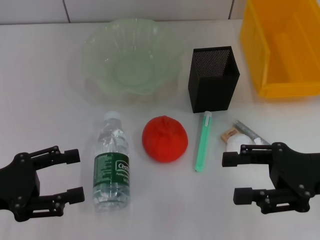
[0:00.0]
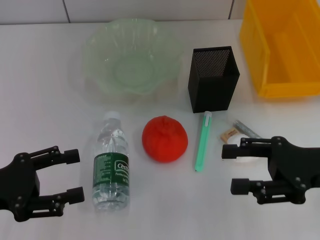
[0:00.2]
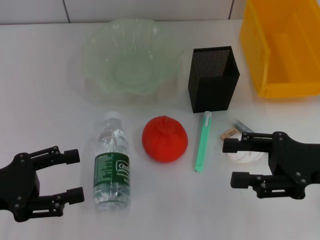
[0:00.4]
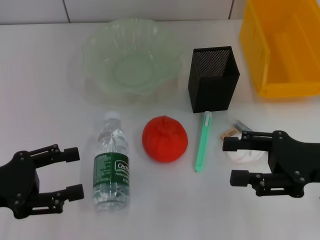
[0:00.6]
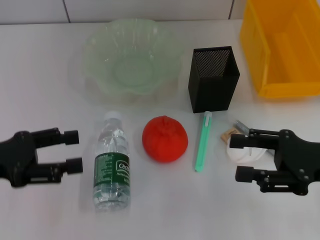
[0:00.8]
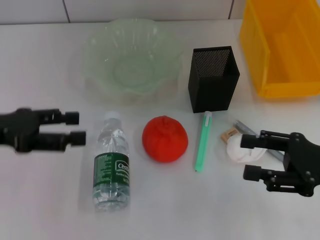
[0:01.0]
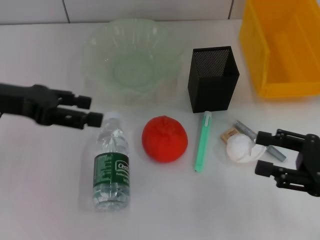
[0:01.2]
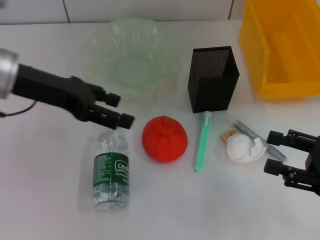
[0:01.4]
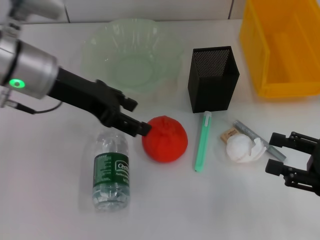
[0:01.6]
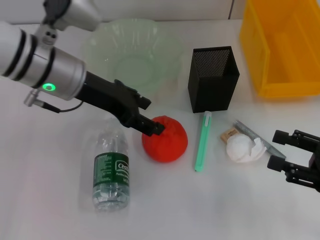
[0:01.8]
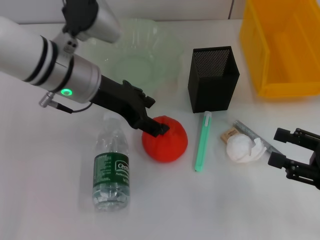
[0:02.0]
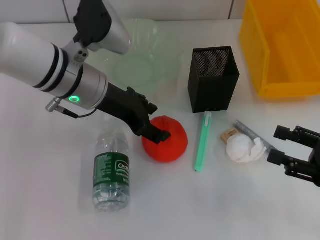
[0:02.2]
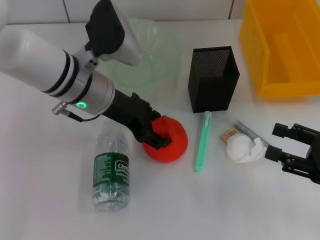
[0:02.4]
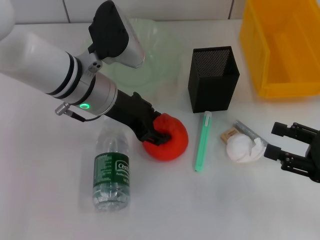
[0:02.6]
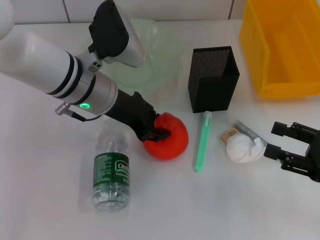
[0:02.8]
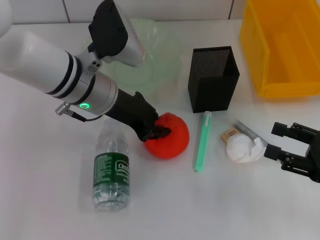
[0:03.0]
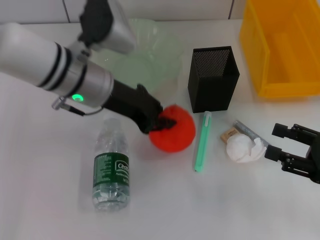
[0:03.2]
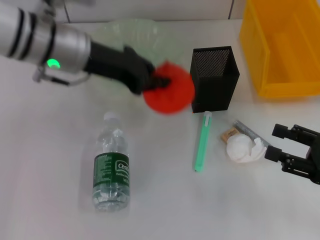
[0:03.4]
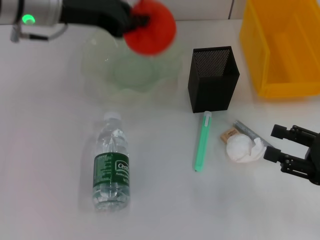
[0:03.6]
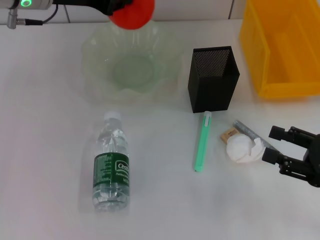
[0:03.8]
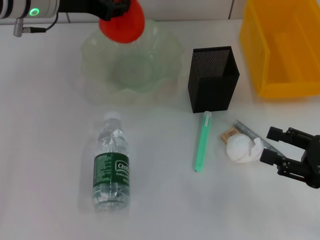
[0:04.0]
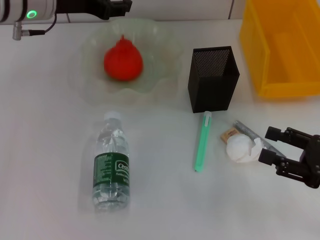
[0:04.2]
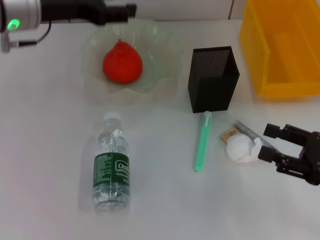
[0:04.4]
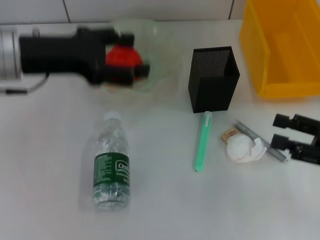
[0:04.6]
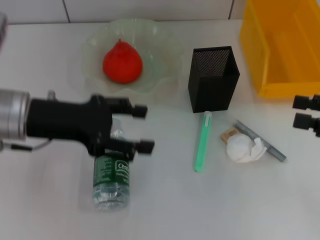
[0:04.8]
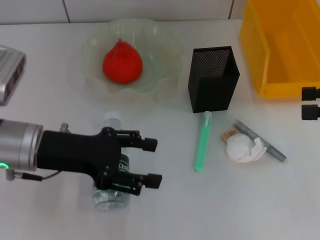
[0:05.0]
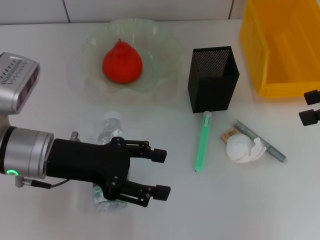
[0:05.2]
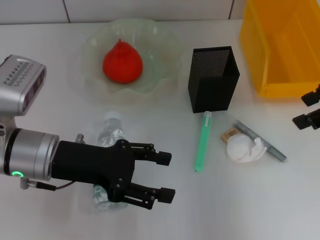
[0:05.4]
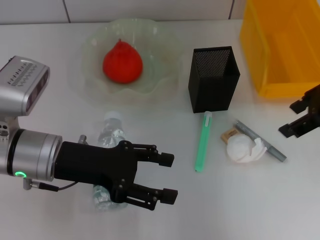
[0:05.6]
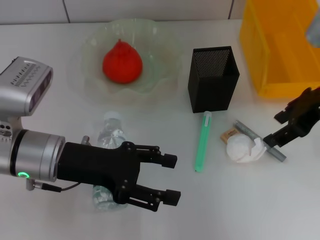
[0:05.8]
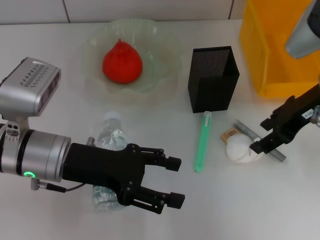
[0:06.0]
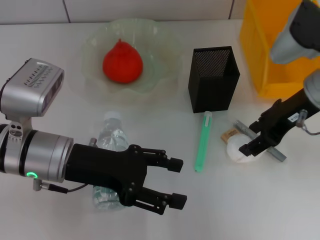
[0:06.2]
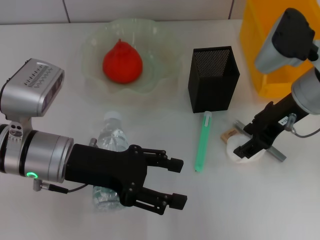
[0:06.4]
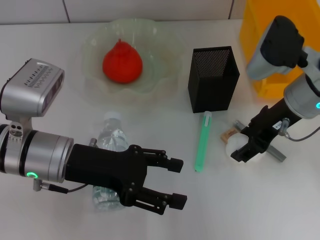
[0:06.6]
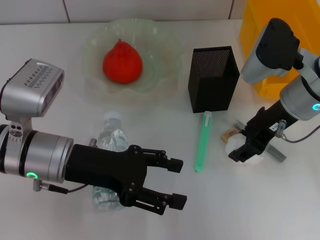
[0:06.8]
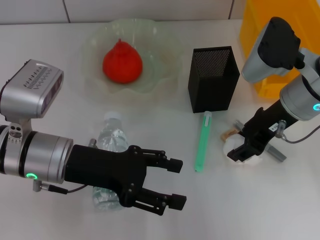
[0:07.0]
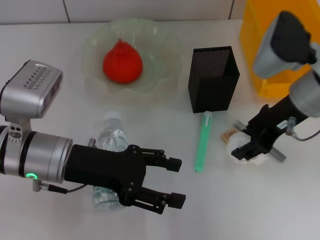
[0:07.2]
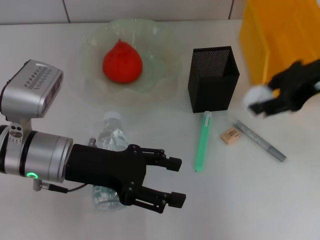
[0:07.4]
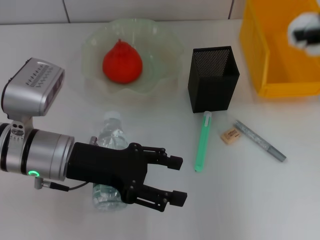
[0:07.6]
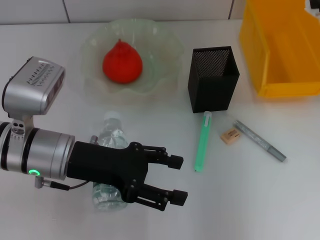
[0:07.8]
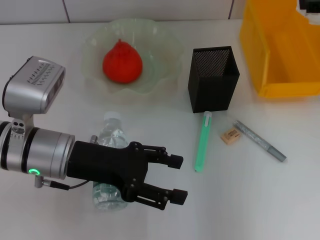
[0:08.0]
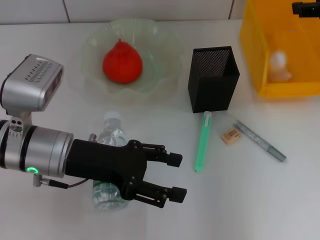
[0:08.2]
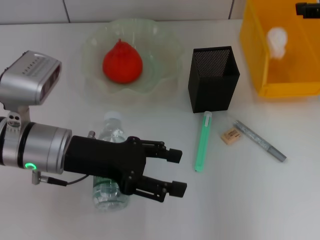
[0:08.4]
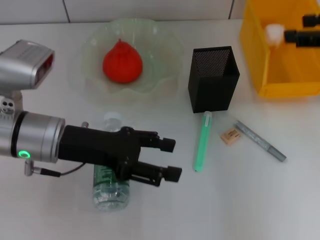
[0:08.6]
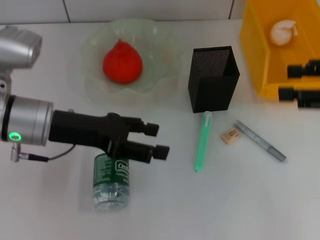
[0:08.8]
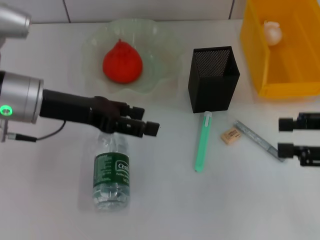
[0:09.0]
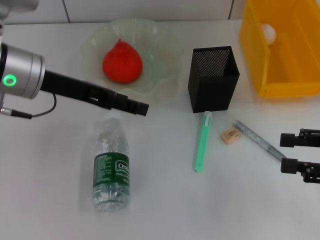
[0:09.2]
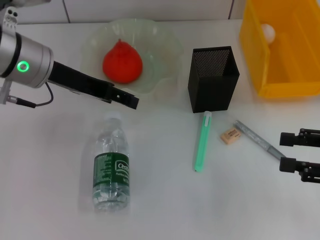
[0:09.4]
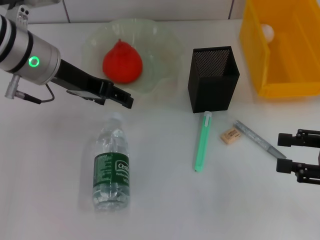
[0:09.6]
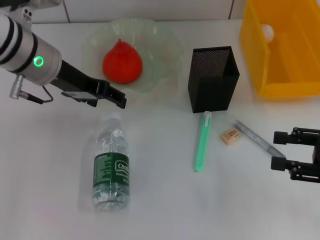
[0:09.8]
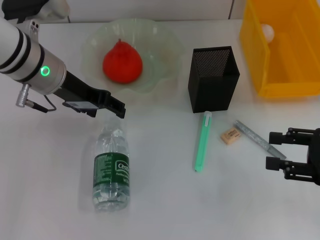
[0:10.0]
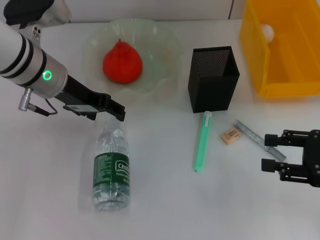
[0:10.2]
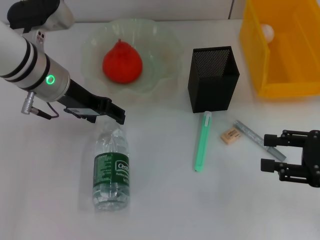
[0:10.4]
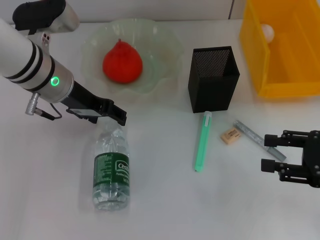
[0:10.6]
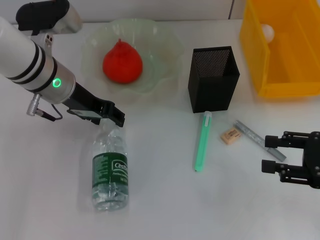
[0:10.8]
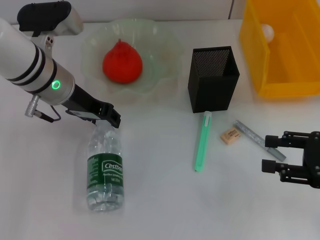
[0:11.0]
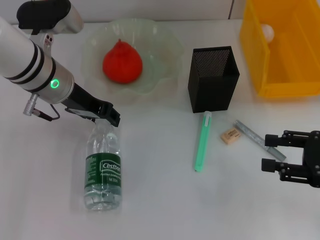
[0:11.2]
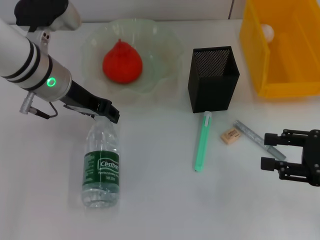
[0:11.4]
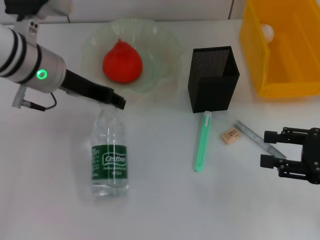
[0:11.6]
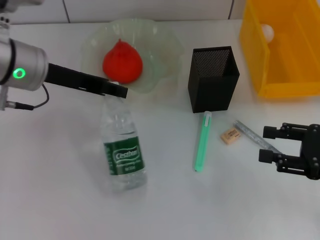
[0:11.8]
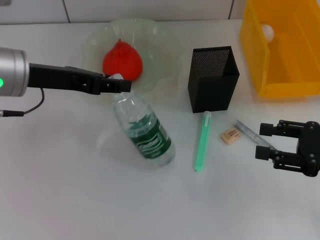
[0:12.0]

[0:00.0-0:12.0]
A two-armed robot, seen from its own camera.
Step, 0:00.0 to 0:02.8: Grab the orange with the left hand.
Step, 0:03.0 to 0:04.4: Place the orange into the fruit bowl with the left hand.
Step, 0:04.6 to 0:07.0: Grab the paper ball with the right hand.
Step, 0:07.2 to 0:09.0: Place the paper ball into the trash can with the right hand.
0:00.0 to 0:01.6: The right gripper moves to the right, some 5 cm; the left gripper shifts approximately 20 cm forward, to the right and upward.
0:01.6 to 0:03.0: The left gripper shifts roughly 5 cm to the right, and closes.
0:03.0 to 0:04.4: The left gripper heads to the left and upward, covering roughly 10 cm, and opens its fingers.
0:04.4 to 0:06.0: The right gripper shifts some 20 cm forward, upward and to the left, while the left gripper moves backward and downward, roughly 15 cm.
0:06.0 to 0:07.6: The right gripper is displaced upward and to the right by about 10 cm.
0:07.6 to 0:09.0: The left gripper is displaced upward by roughly 5 cm, while the right gripper is displaced downward and backward by approximately 15 cm.
0:09.0 to 0:10.4: The left gripper goes approximately 5 cm forward. Meanwhile the right gripper heads downward, covering about 5 cm.
0:10.4 to 0:12.0: The left gripper changes place by about 5 cm, and closes up.

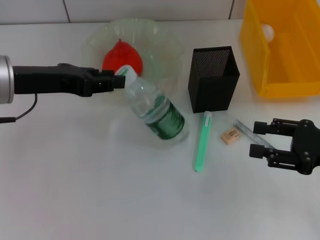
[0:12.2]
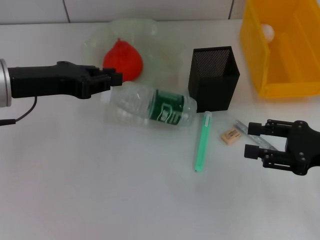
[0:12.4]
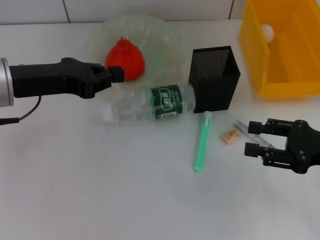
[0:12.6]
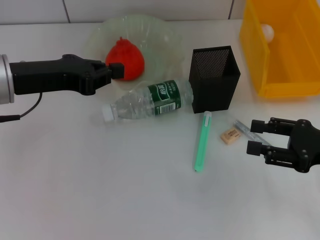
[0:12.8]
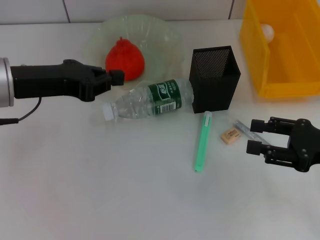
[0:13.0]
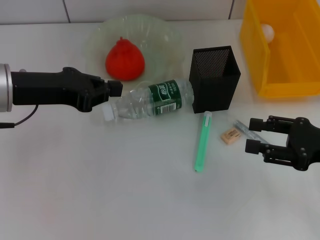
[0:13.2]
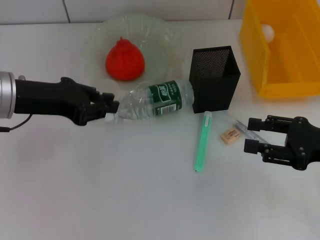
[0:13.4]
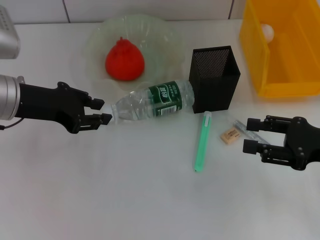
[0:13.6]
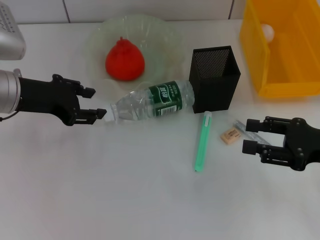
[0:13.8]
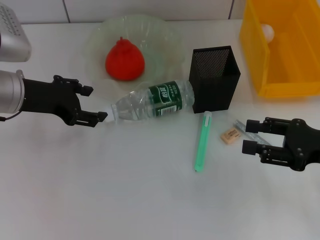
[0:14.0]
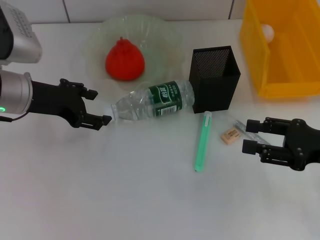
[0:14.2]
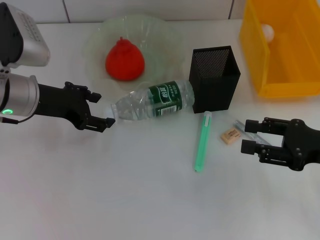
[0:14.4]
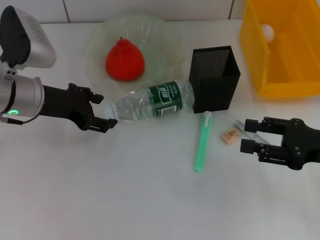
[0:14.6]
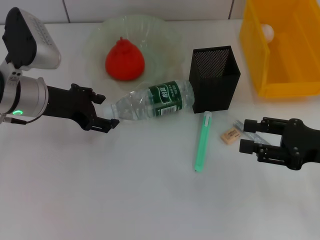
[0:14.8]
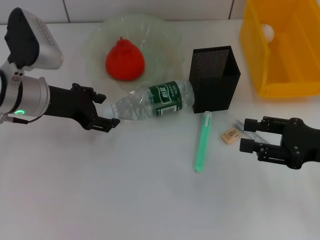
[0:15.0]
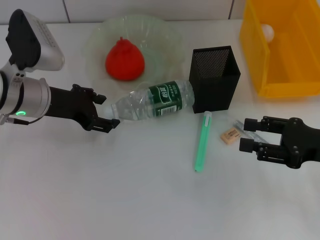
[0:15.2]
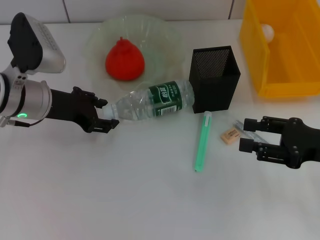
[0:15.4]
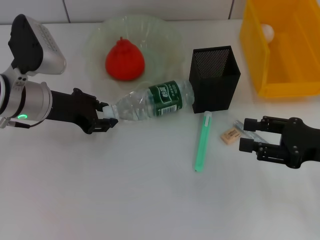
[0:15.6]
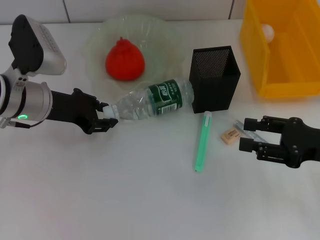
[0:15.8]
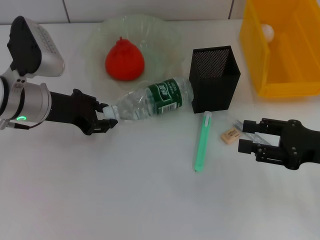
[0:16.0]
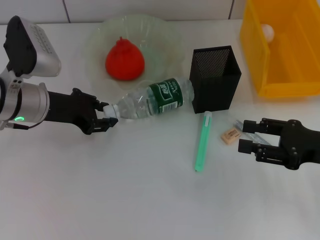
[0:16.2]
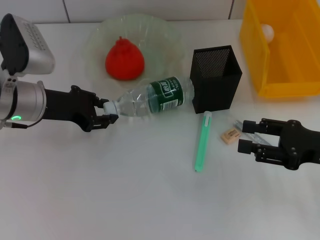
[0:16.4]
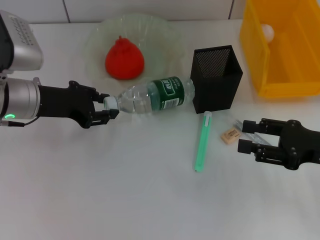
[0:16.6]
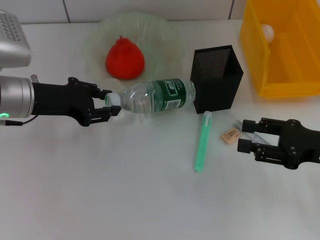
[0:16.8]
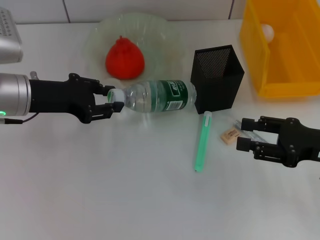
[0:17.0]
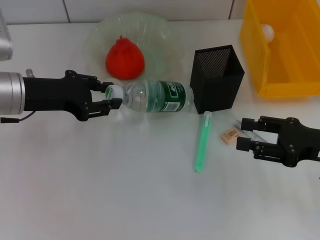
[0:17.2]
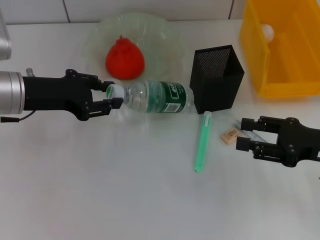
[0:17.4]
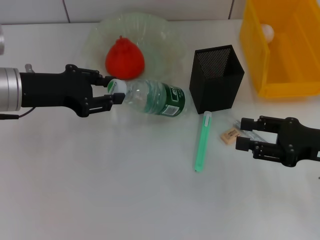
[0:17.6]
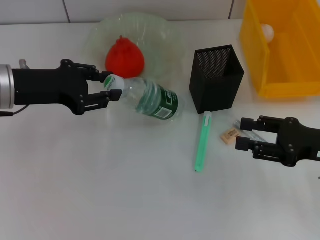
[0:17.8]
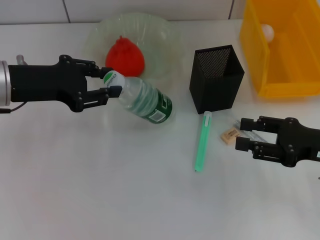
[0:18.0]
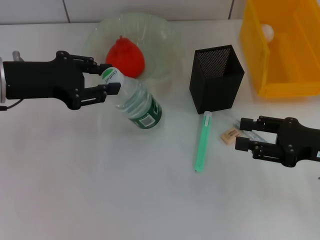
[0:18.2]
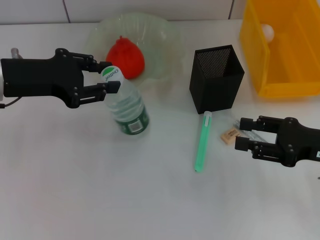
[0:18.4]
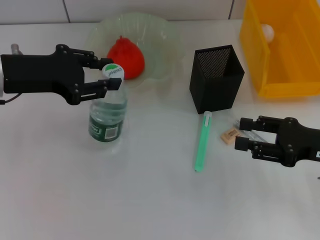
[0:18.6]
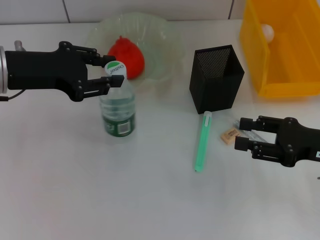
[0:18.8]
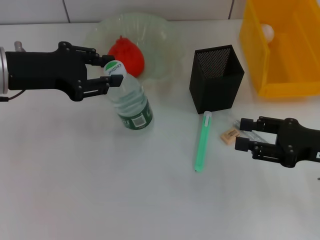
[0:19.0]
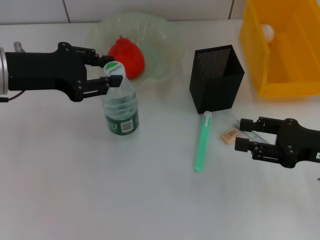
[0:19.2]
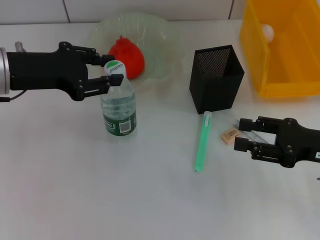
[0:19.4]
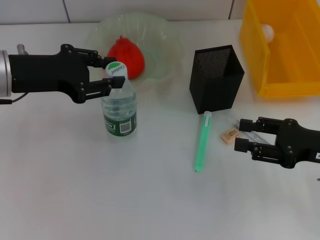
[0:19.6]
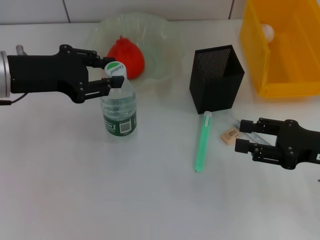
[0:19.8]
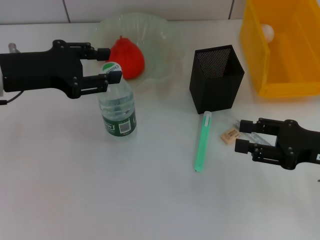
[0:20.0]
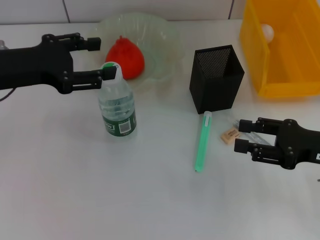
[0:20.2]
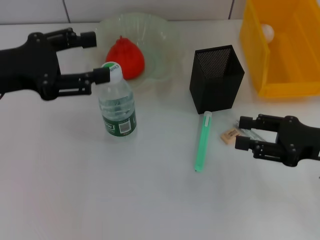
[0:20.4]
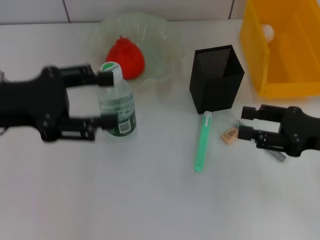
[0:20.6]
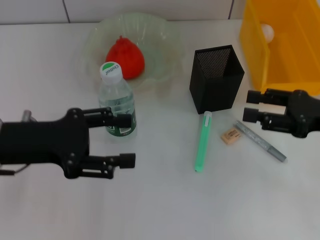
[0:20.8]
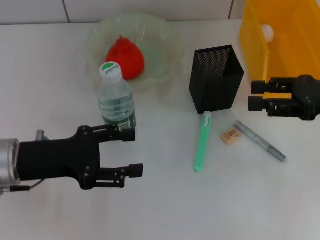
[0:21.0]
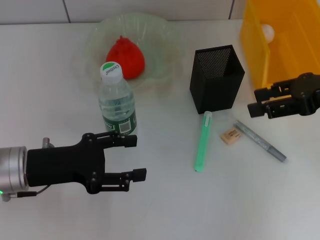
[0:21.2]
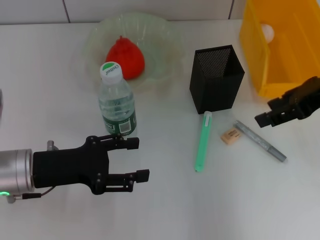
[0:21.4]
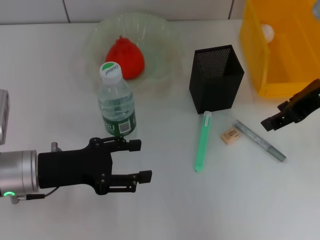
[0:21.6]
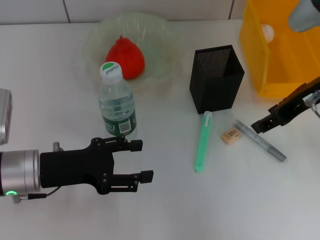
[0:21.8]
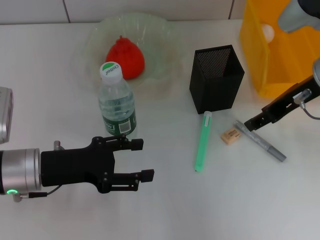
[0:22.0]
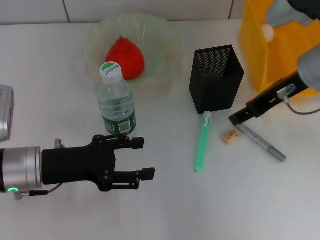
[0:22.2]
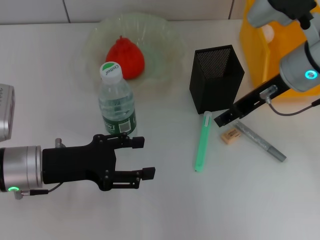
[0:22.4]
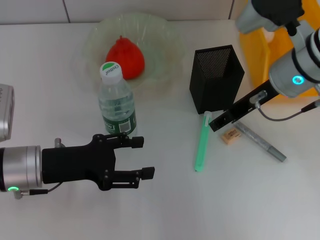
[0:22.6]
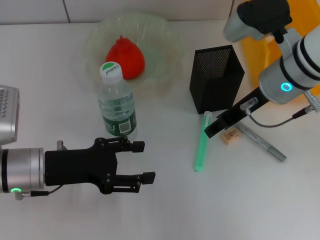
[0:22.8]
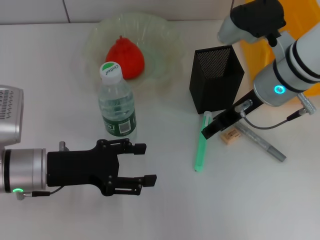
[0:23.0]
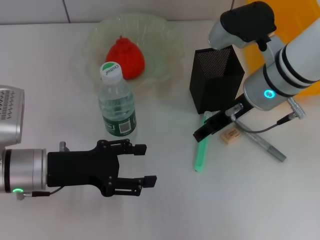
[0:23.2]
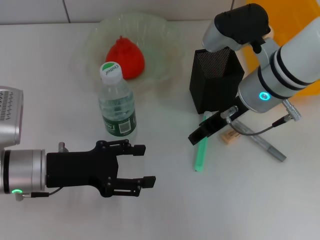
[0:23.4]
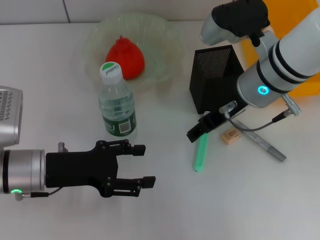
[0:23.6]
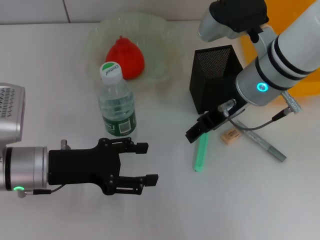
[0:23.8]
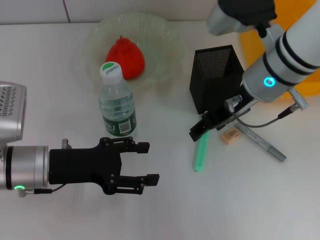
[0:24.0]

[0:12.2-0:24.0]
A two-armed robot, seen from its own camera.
Step, 0:12.2 to 0:15.8: Grab the water bottle with the left hand.
Step, 0:16.0 to 0:20.2: Place the water bottle on the table with the left hand.
0:12.2 to 0:13.6: The left gripper closes its fingers.
0:13.6 to 0:15.2: The left gripper changes place by some 5 cm, and opens up.
0:15.2 to 0:16.6: The left gripper closes up.
0:16.6 to 0:18.2: The left gripper heads upward, covering approximately 5 cm.
0:18.2 to 0:19.6: The grippers move only a little.
0:19.6 to 0:21.0: The right gripper travels upward by roughly 10 cm. Meanwhile the left gripper is displaced downward and backward by some 10 cm, and opens up.
0:21.0 to 0:22.6: The right gripper heads to the left and forward, covering roughly 15 cm.
0:22.6 to 0:24.0: The grippers make only small movements.
